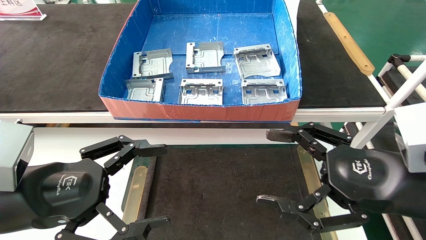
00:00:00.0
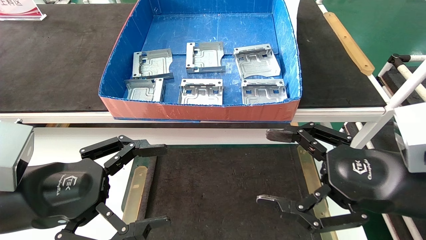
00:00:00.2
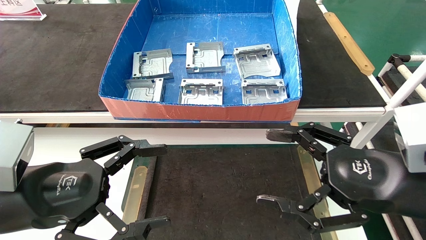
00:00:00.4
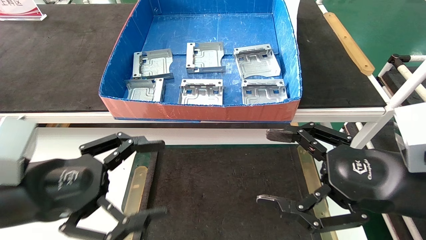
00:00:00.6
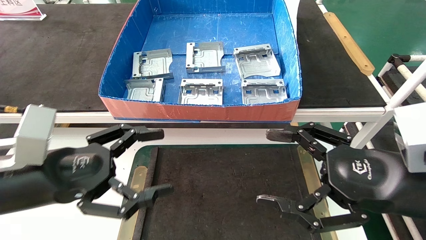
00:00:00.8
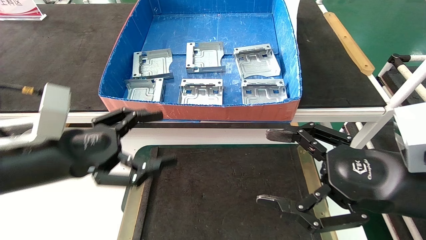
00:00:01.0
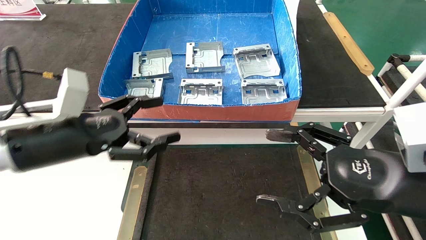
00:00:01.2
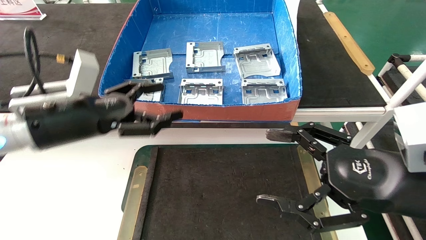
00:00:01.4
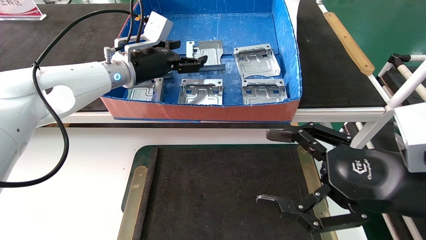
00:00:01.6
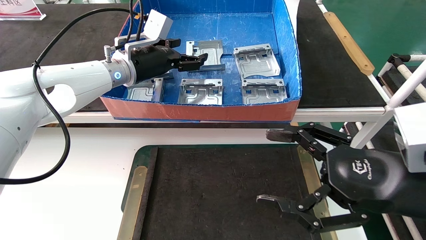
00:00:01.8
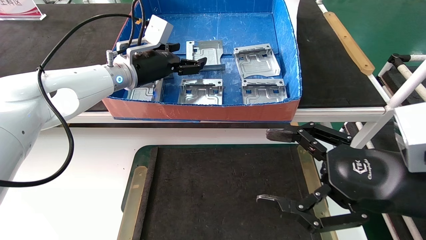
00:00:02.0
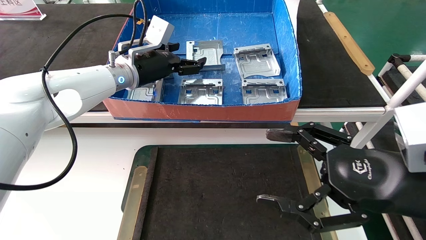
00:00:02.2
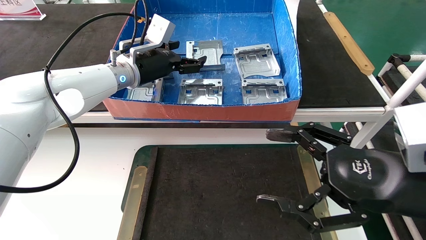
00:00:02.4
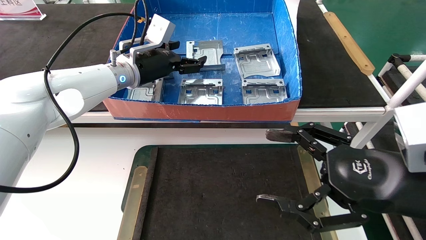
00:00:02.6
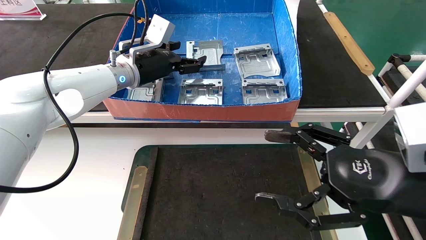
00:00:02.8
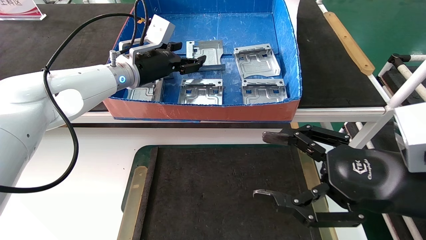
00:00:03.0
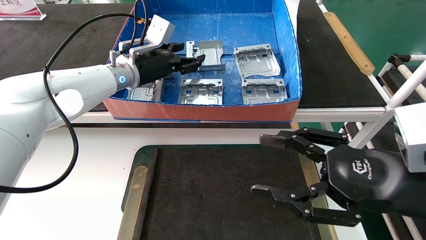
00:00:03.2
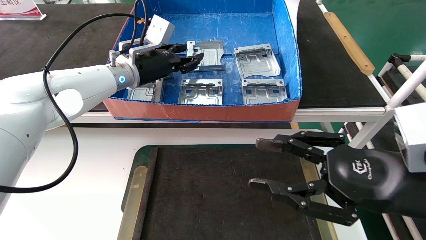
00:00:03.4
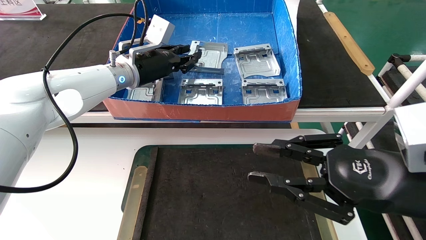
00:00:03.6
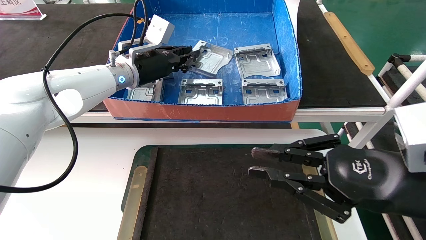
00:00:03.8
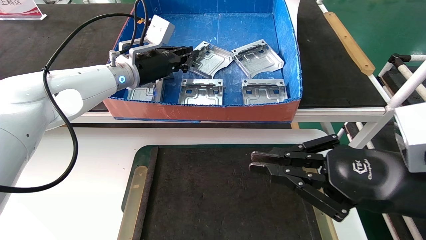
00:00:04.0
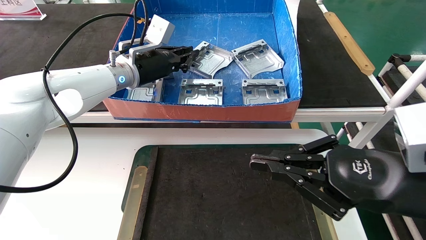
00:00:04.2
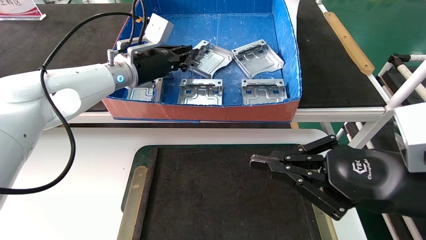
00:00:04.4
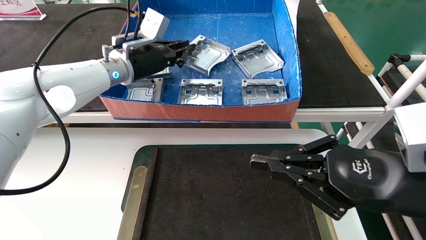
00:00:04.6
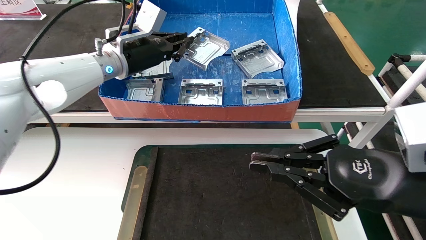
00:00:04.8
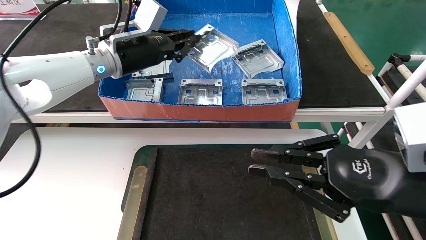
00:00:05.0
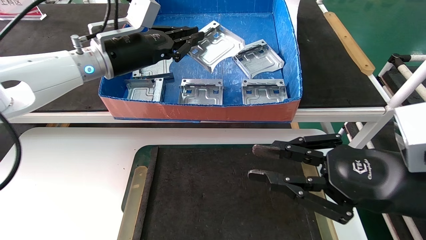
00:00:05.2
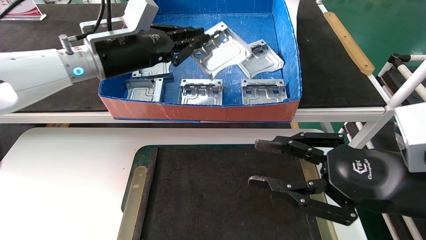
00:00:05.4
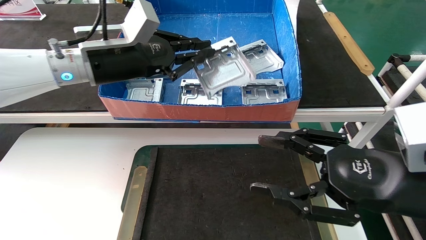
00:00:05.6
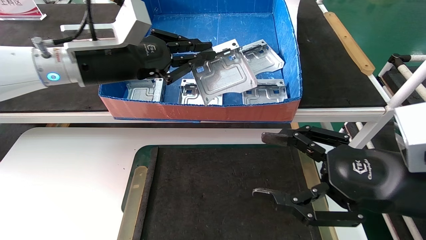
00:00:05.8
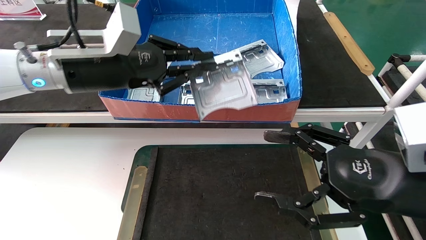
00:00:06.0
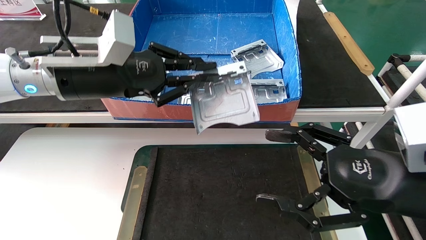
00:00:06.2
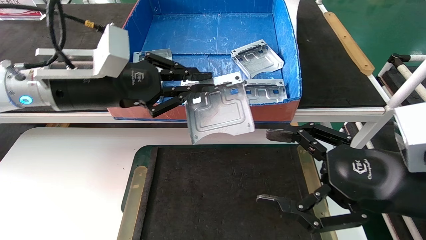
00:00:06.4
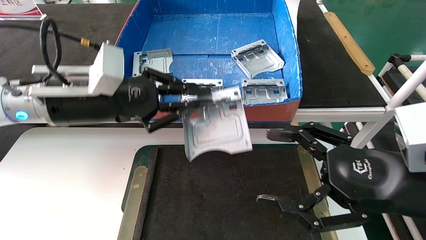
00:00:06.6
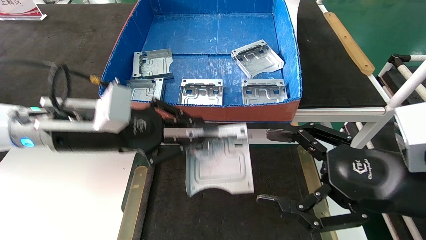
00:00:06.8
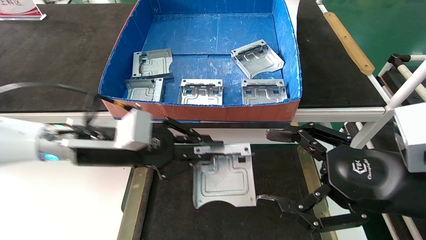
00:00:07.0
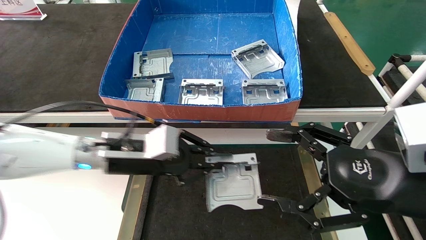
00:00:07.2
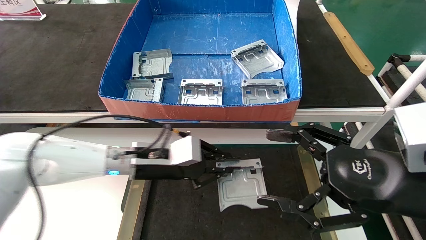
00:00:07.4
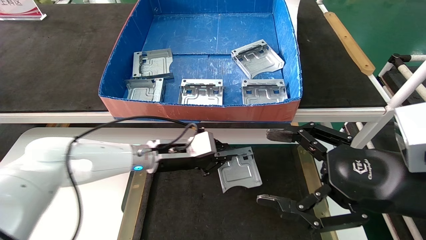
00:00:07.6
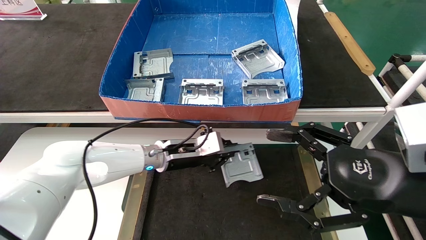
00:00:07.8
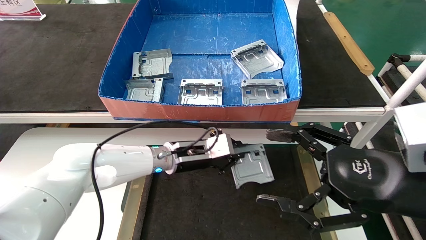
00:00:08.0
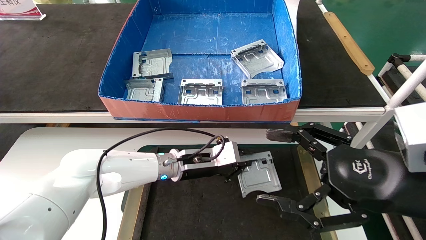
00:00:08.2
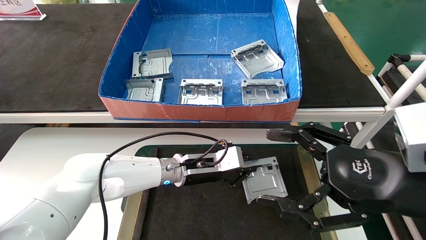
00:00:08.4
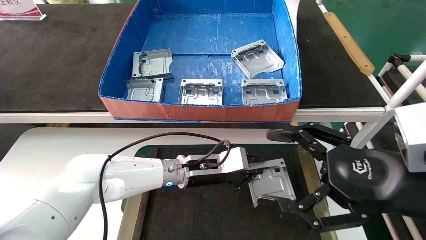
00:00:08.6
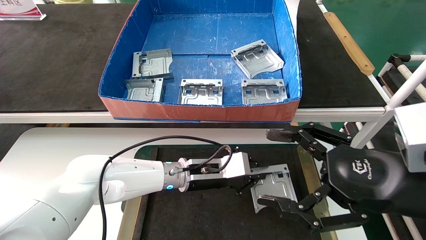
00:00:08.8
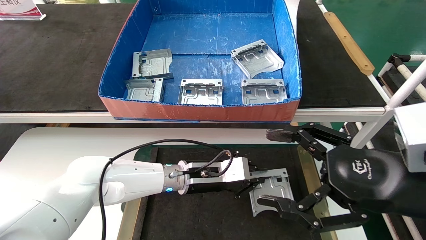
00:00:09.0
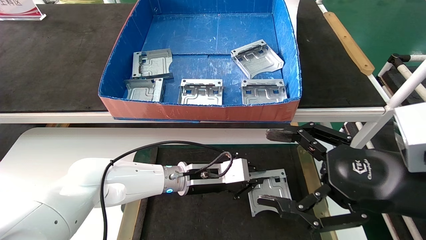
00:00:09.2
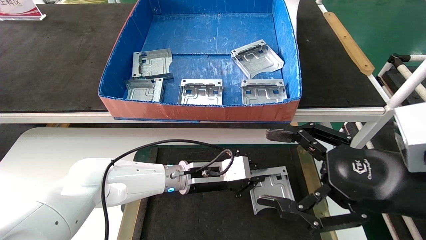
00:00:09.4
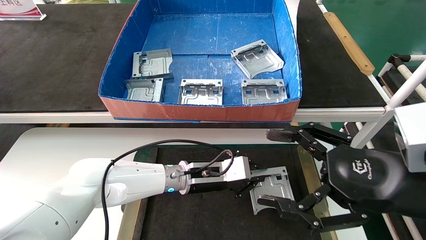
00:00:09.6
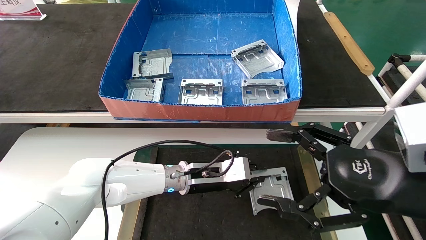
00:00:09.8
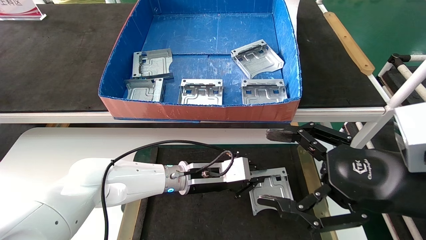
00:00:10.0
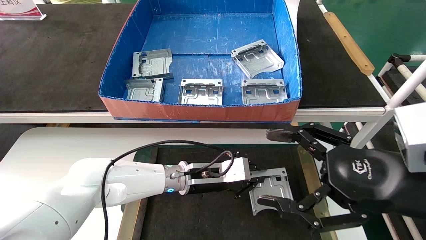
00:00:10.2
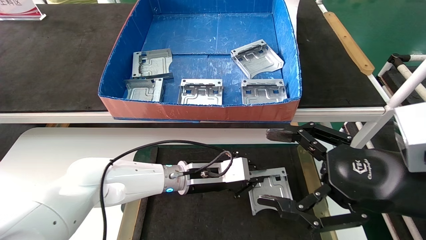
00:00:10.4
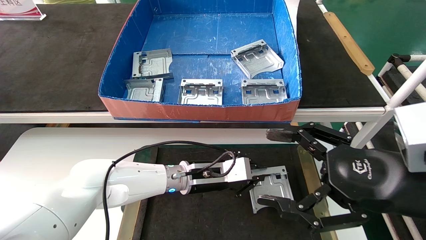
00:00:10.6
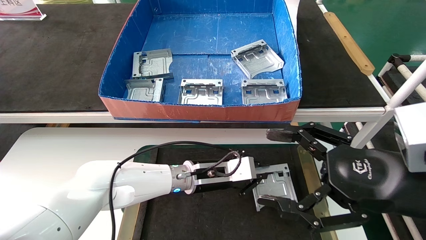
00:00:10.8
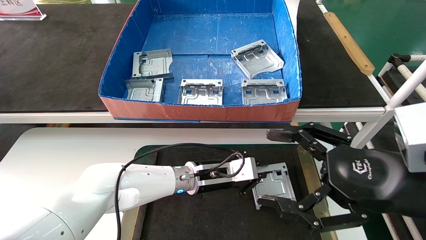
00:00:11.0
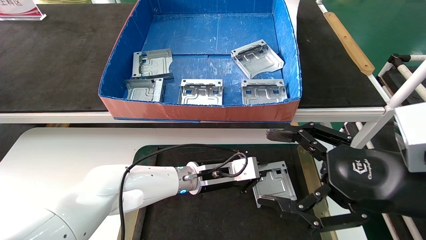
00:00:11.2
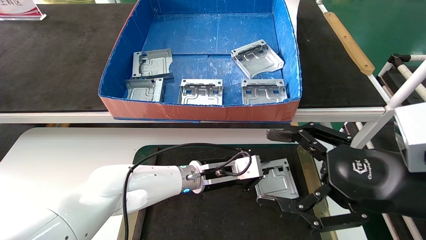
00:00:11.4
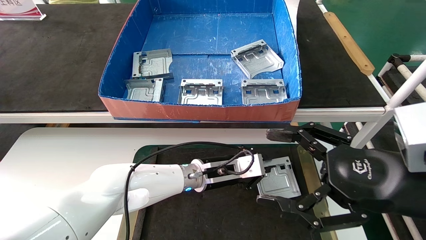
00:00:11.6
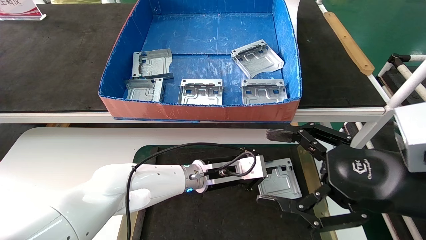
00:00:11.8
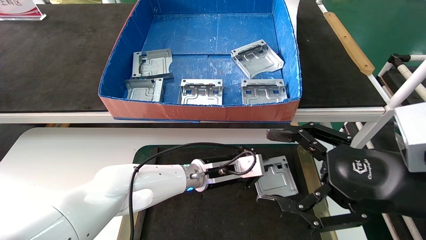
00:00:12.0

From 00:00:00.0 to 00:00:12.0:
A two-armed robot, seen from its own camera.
Task of the whole recording: take the accessories out of the box and place them on the table.
Step, from 00:00:01.2 to 00:00:05.6: Pick up the hard drive bracket from the feeding area.
From 00:00:00.0 to 00:00:01.6: The left gripper heads forward and upward, covering approximately 15 cm.
From 00:00:01.6 to 00:00:03.0: The left gripper shifts some 15 cm forward and to the right.
From 00:00:03.0 to 00:00:04.4: There are only small adjustments of the grippers.
From 00:00:04.4 to 00:00:06.0: The left gripper closes; the right gripper closes its fingers.
From 00:00:06.0 to 00:00:07.6: The left gripper goes roughly 10 cm backward; the right gripper opens up.
From 00:00:07.6 to 00:00:09.0: The left gripper moves downward, roughly 15 cm.
From 00:00:09.0 to 00:00:10.4: The left gripper shifts about 15 cm to the right and downward.
From 00:00:10.4 to 00:00:12.0: Both grippers stay about where they are.

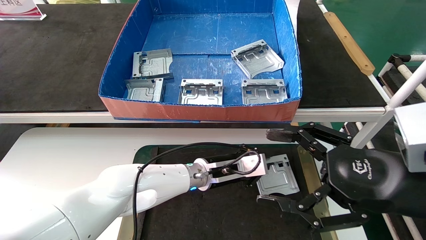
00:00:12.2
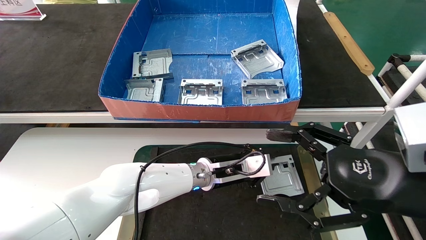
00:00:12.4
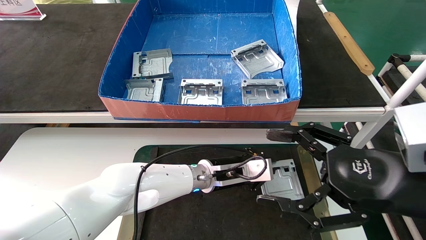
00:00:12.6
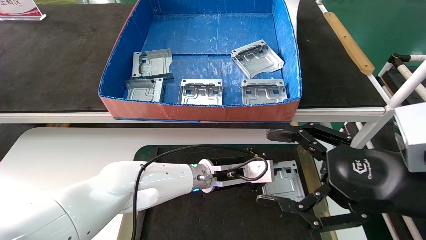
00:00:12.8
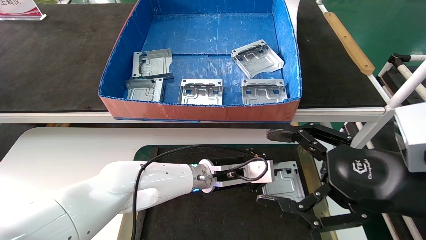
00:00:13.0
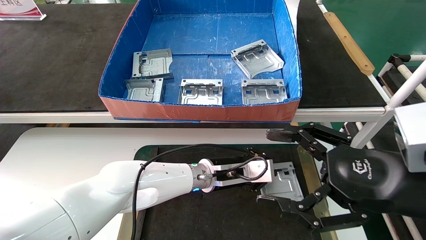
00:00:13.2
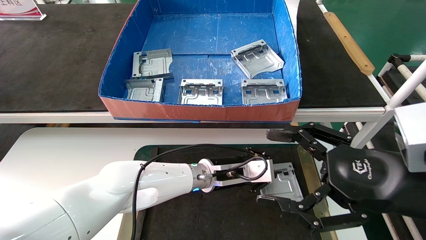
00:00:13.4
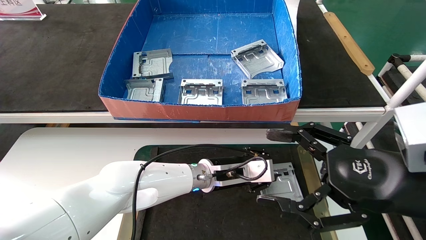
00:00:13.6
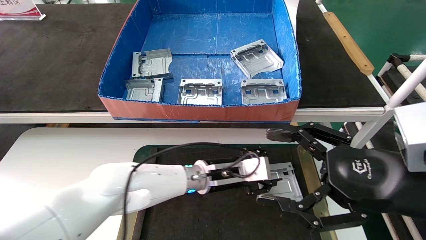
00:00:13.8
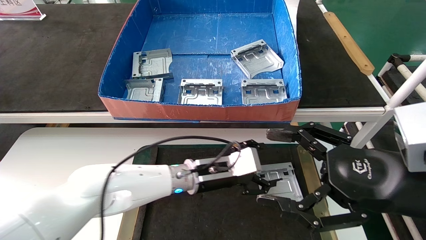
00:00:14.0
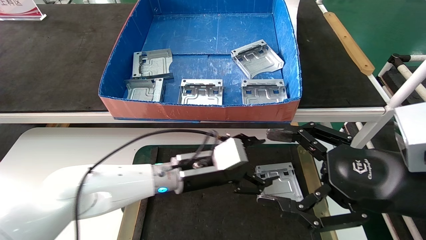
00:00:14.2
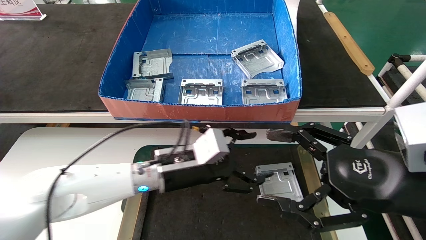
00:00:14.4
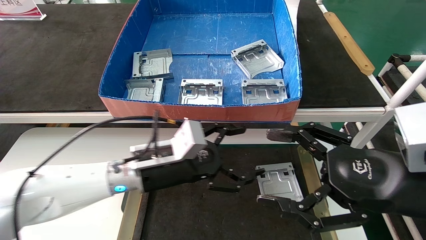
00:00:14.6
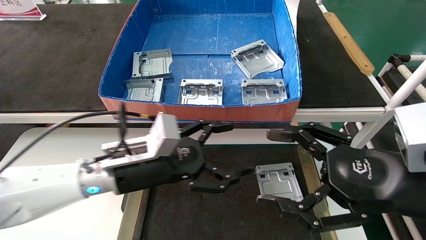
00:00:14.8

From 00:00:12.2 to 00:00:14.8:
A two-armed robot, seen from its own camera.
Task of the whole recording: take the accessories out of the box and place them on the table.
Step, from 00:00:12.2 to 00:00:14.8: Place the hard drive bracket into the box.
From 00:00:12.2 to 00:00:14.8: The grippers make only small movements.
